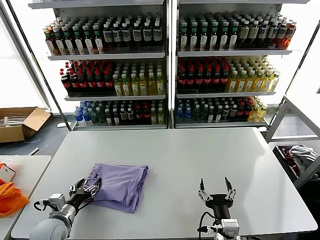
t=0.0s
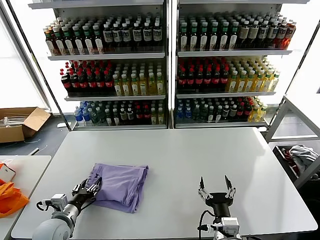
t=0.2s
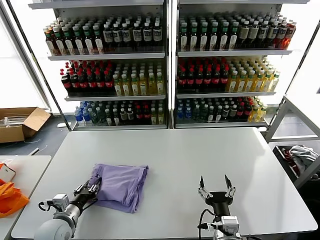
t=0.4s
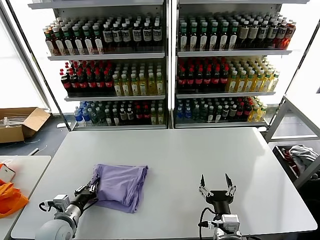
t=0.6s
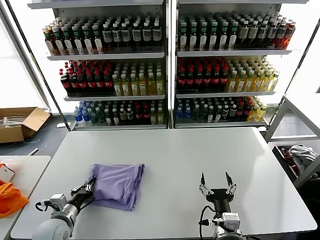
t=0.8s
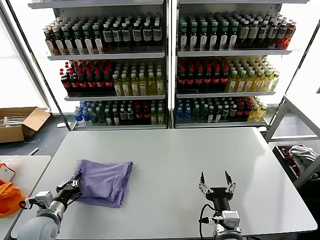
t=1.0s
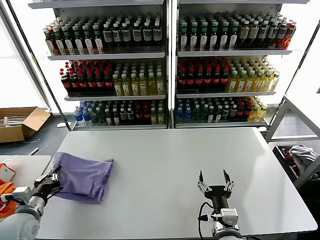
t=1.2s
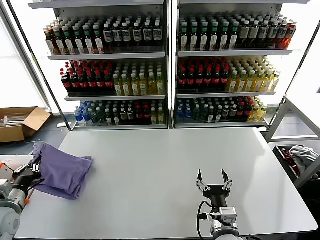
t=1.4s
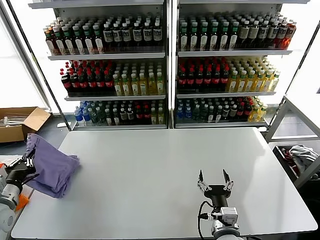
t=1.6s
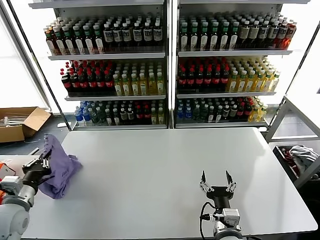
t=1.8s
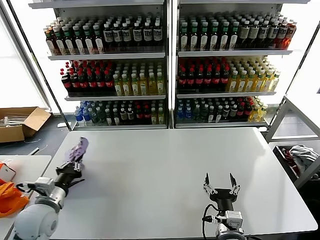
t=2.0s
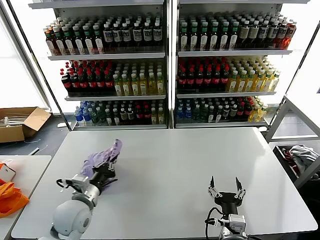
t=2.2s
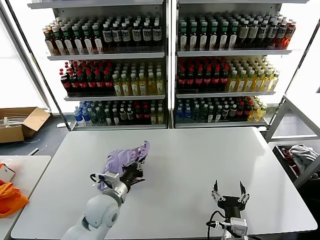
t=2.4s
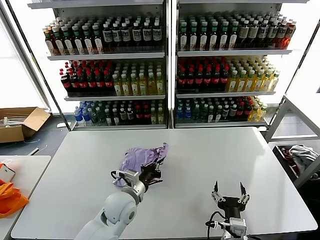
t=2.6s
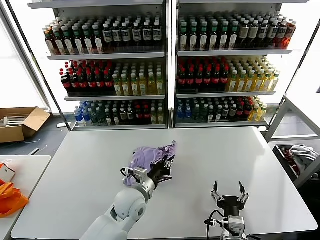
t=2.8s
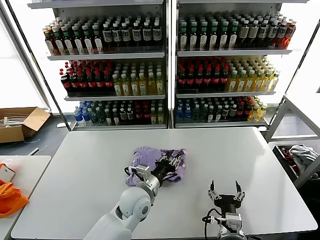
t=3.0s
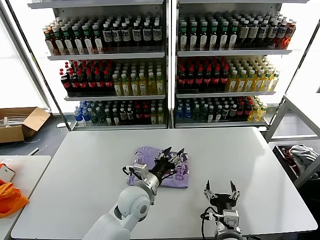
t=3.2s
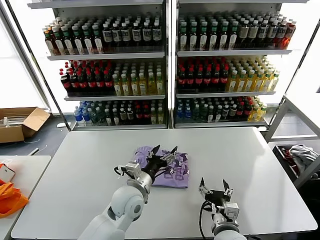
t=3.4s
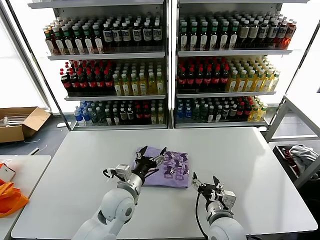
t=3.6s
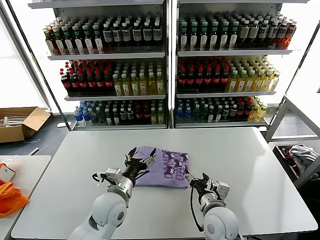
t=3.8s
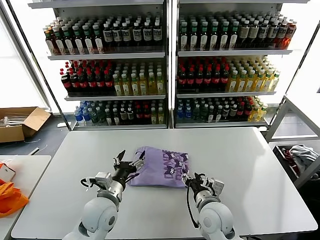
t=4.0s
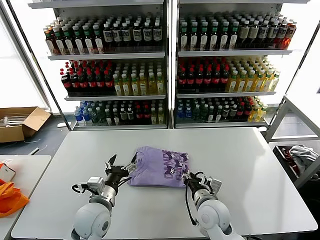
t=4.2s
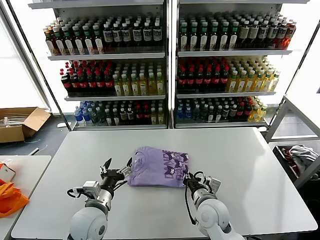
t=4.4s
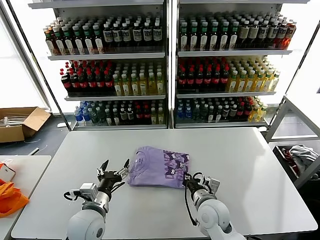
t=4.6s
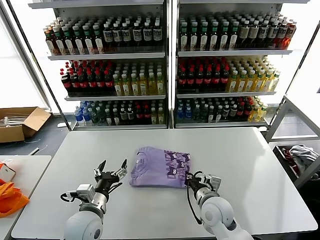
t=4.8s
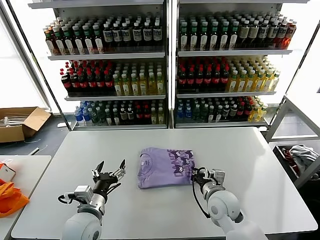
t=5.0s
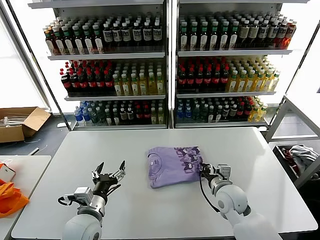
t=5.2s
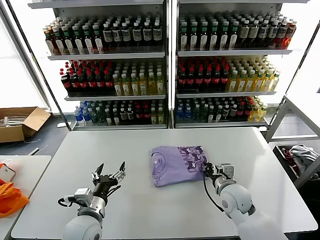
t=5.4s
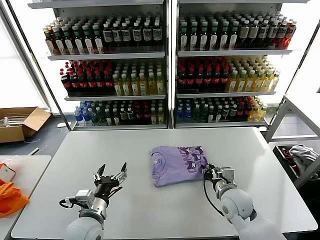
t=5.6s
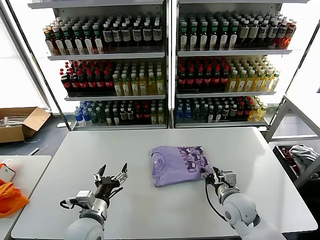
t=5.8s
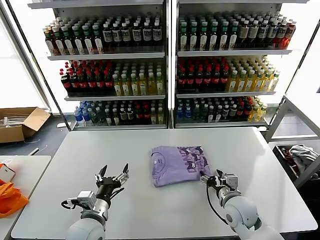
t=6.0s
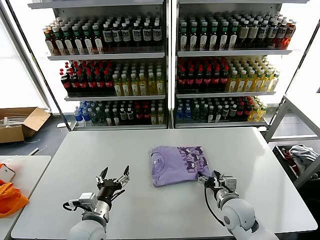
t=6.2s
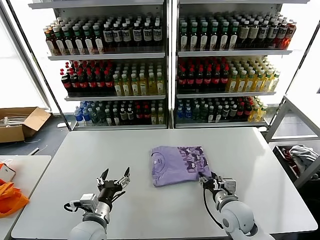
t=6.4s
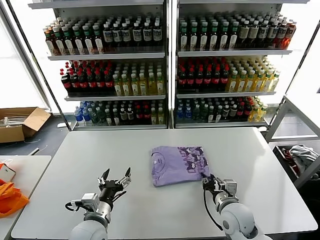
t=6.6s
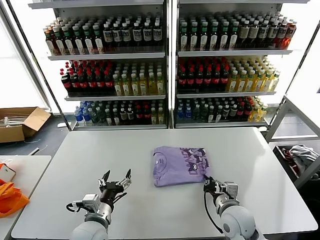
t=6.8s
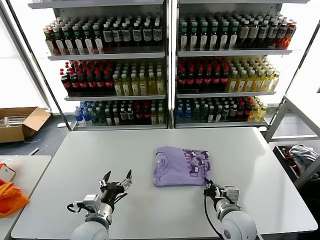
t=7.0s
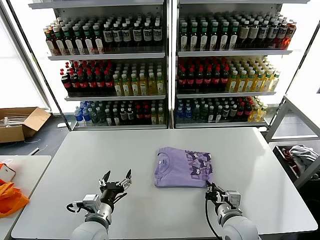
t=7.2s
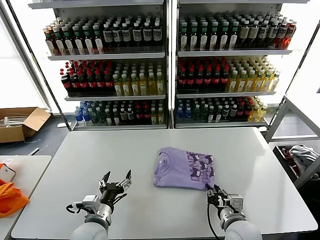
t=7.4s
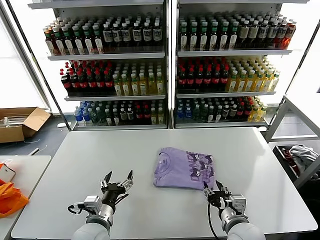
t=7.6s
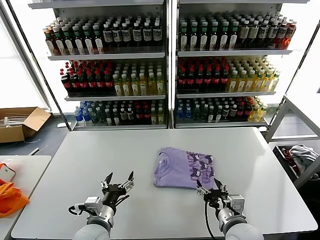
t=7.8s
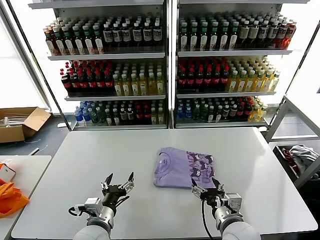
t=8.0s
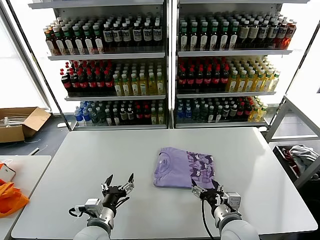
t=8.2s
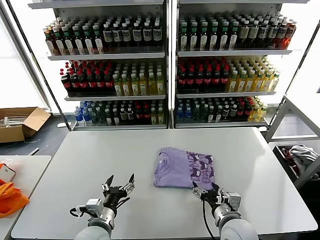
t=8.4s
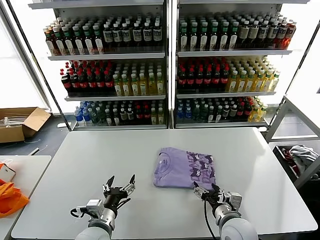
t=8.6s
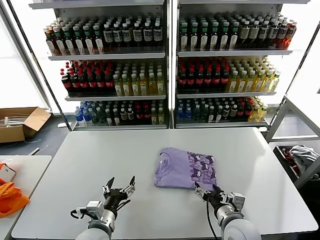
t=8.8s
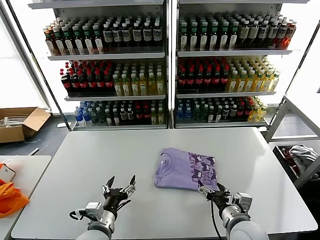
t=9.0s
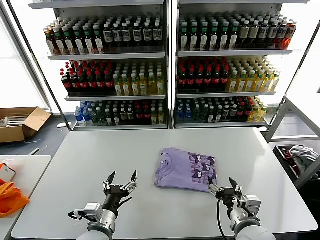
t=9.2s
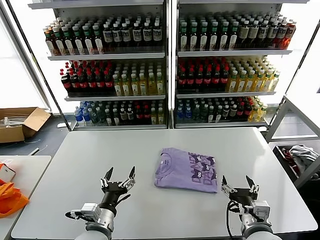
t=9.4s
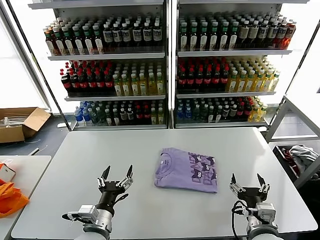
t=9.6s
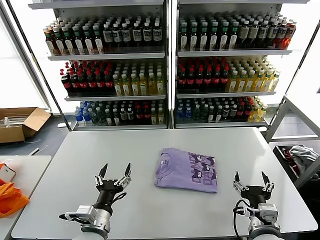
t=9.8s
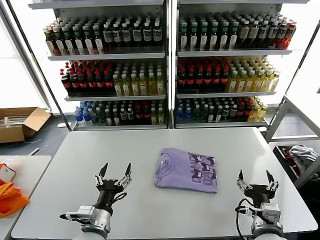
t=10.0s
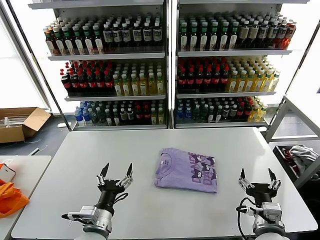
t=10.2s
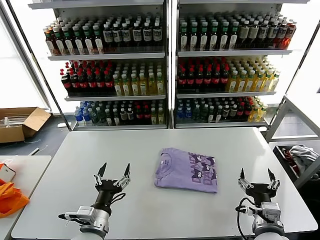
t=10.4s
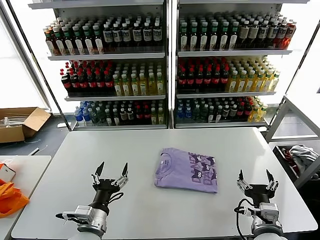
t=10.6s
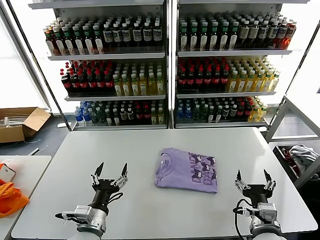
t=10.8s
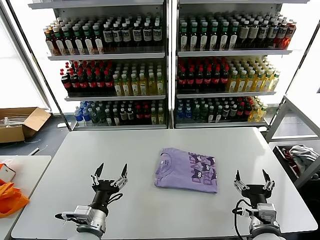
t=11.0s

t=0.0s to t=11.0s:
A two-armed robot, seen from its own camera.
Task of the whole recording: fold and organize the clothes.
Step, t=0.0s to t=3.2s: Flip the folded clothes over with left gripper.
Step, t=3.4s to t=9.2s: Drag the clothes to the center of the table.
t=0.0s to t=1.6s: The left gripper heads upward and to the left, covering about 15 cm, and closes up.
t=1.6s to t=3.2s: The left gripper moves to the right, about 35 cm, and opens its fingers.
t=3.2s to t=4.8s: The right gripper shifts approximately 10 cm forward, and closes its fingers; the left gripper heads to the left and backward, covering roughly 15 cm.
t=4.8s to t=6.2s: The right gripper is displaced to the right by about 5 cm, and opens up.
t=6.2s to t=7.8s: The right gripper goes approximately 10 cm backward, and closes, then reopens.
t=7.8s to t=9.4s: The grippers move only a little.
t=9.4s to t=11.0s: There are only small adjustments of the grippers.
